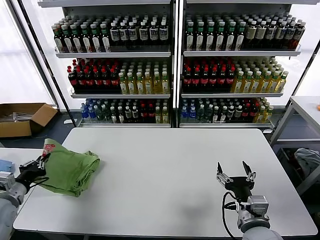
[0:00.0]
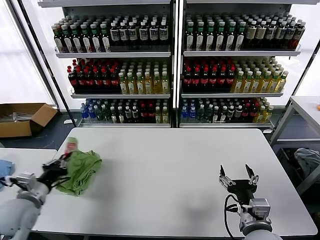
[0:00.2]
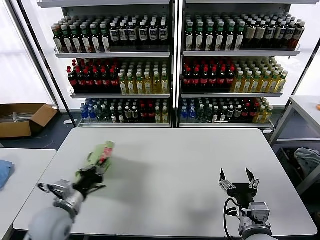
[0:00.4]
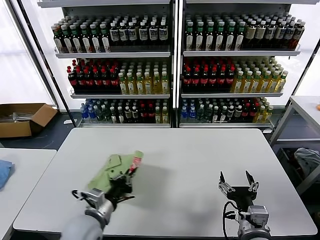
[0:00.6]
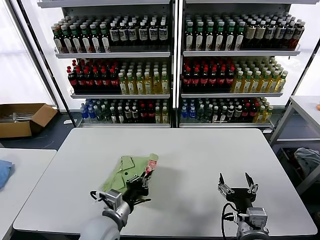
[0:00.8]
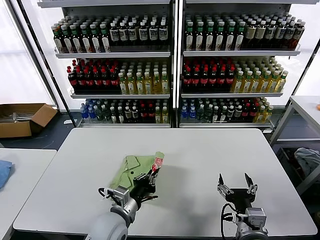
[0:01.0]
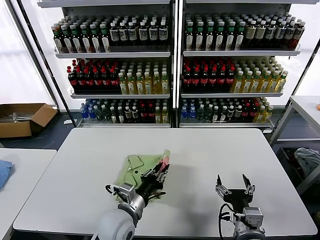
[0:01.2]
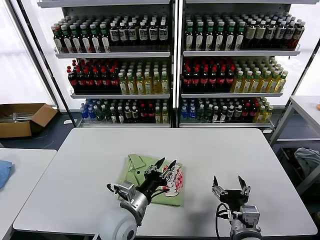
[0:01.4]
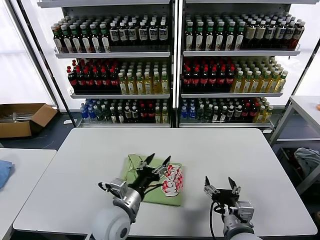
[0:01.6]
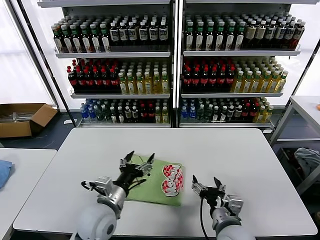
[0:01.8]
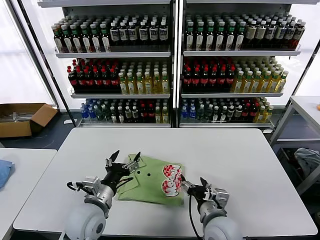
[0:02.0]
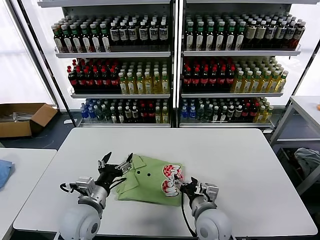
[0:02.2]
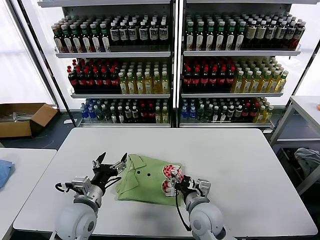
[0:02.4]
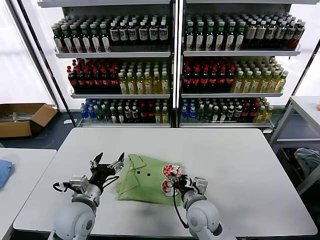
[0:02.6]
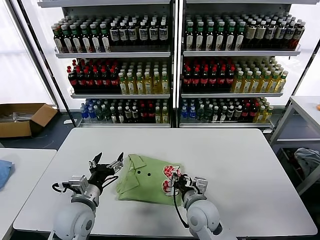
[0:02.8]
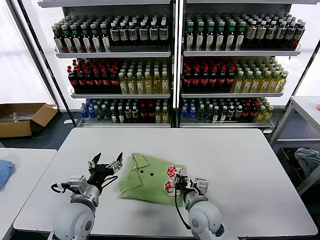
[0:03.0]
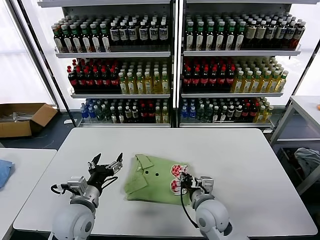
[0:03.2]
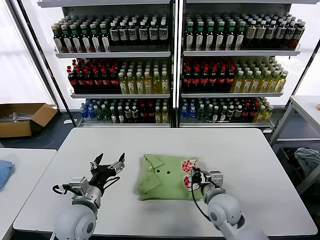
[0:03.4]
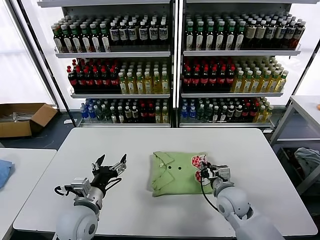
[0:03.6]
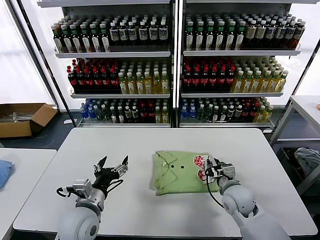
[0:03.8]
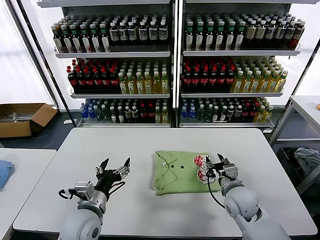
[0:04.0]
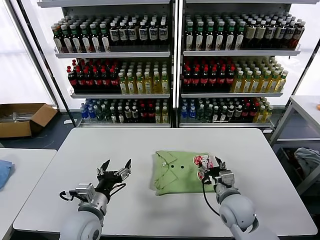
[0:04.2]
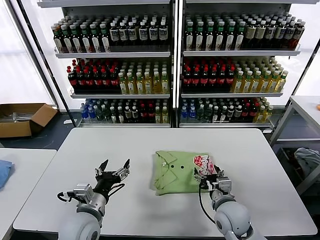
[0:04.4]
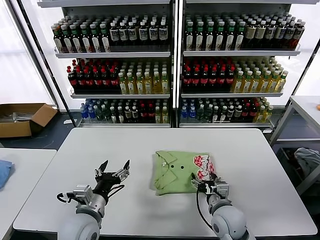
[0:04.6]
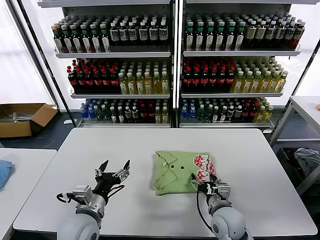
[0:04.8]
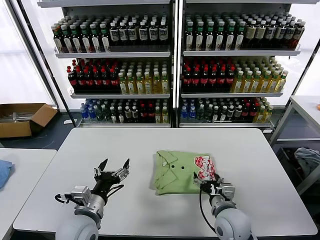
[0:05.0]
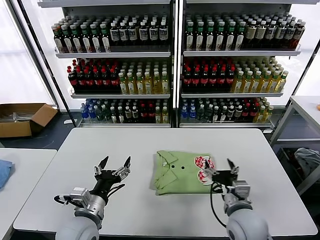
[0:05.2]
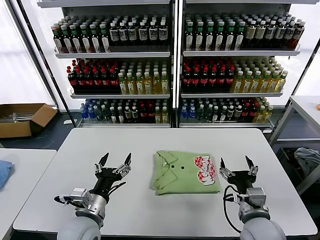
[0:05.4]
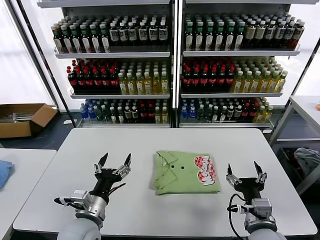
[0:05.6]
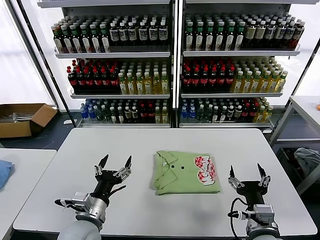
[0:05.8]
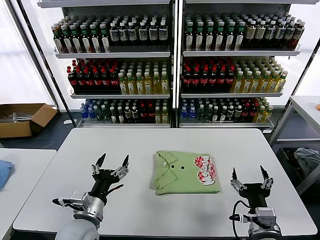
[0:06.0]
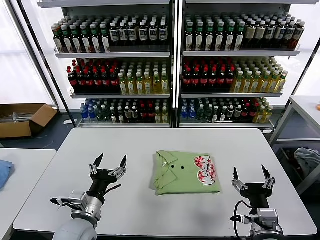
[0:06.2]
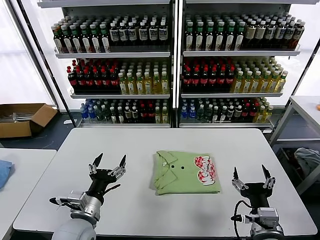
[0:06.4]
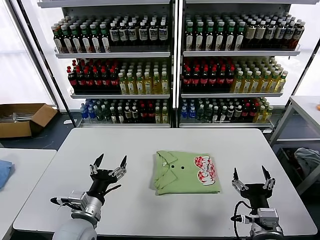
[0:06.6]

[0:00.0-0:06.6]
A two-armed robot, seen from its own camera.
Task of the whole recording: fold and organize the clothes.
Step, 1.6 to 5.0 s: Drag the clothes to the center of the table.
0.0 to 1.6 s: The left gripper goes roughly 35 cm to the right, and opens.
1.6 to 3.2 s: The left gripper moves to the left, roughly 10 cm. Meanwhile the right gripper travels forward and to the left by some 15 cm, and closes up.
3.2 to 5.0 s: The right gripper heads to the right, covering about 5 cm, and opens.
5.0 to 6.6 s: The right gripper moves backward, upward and to the right, roughly 15 cm.

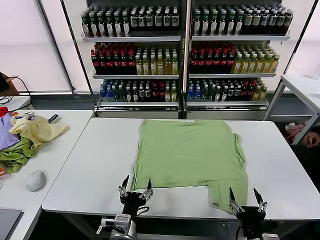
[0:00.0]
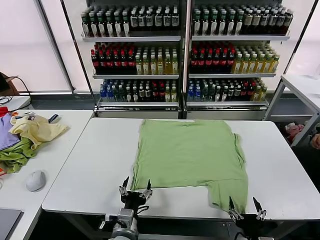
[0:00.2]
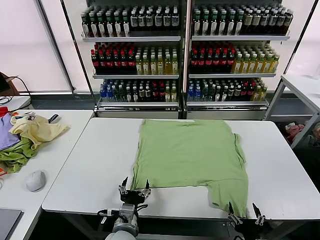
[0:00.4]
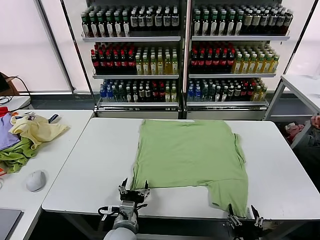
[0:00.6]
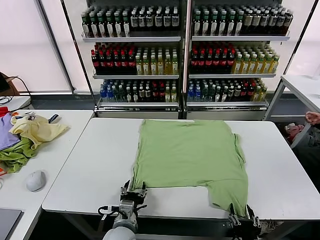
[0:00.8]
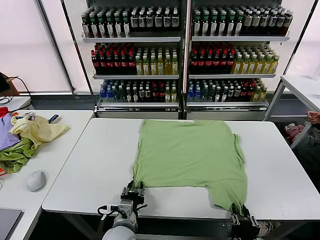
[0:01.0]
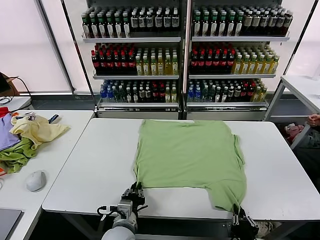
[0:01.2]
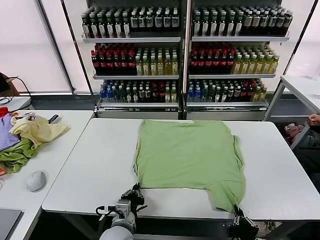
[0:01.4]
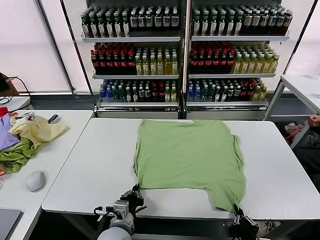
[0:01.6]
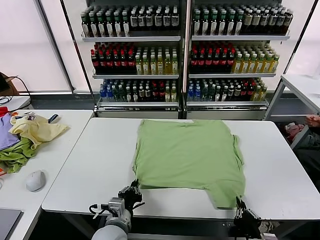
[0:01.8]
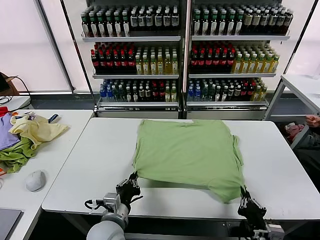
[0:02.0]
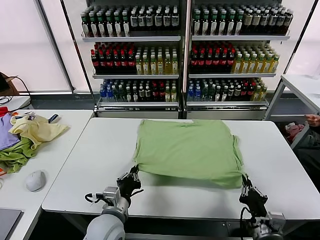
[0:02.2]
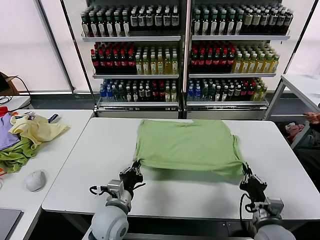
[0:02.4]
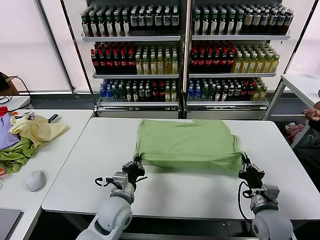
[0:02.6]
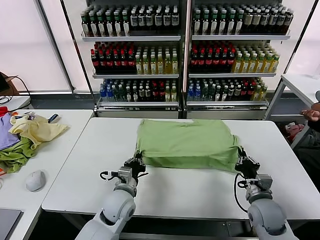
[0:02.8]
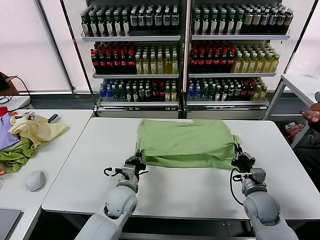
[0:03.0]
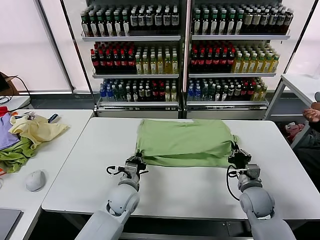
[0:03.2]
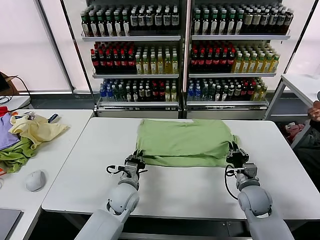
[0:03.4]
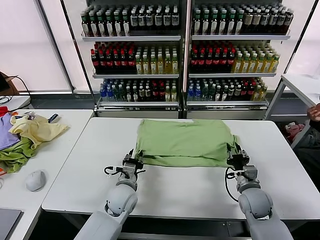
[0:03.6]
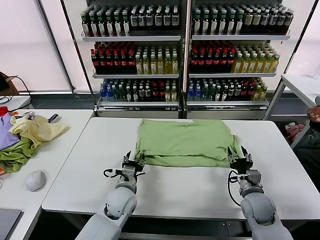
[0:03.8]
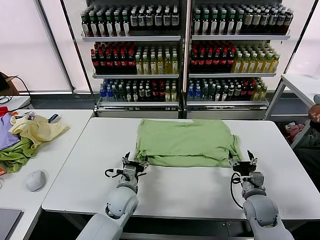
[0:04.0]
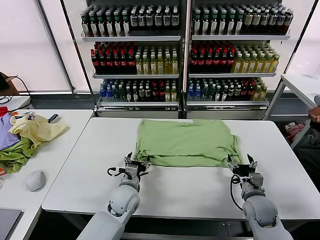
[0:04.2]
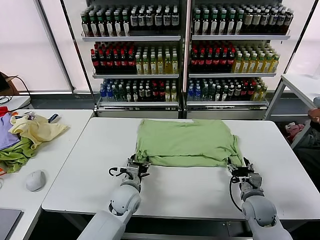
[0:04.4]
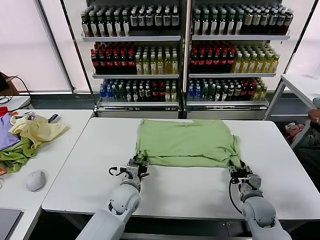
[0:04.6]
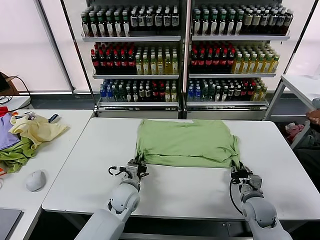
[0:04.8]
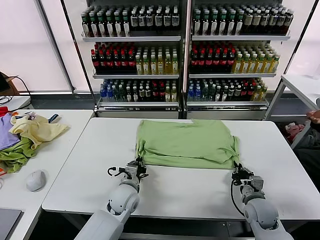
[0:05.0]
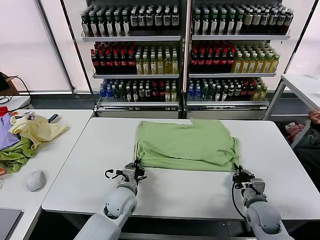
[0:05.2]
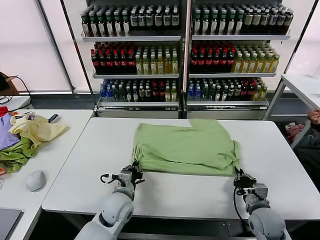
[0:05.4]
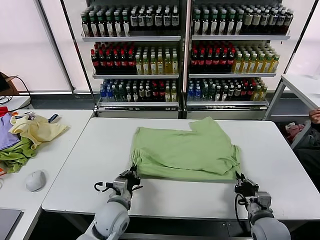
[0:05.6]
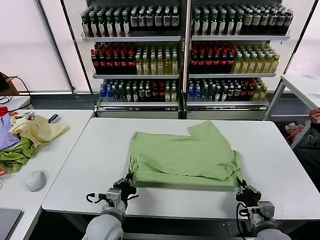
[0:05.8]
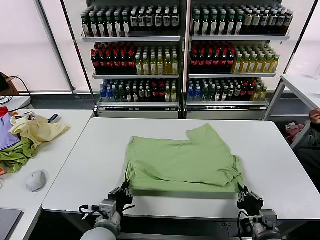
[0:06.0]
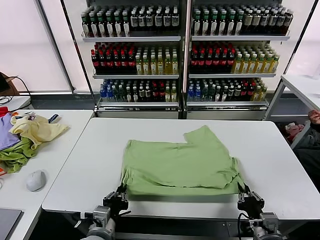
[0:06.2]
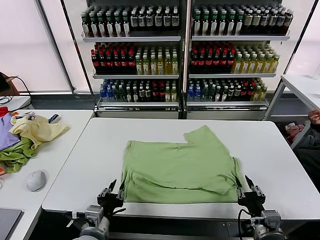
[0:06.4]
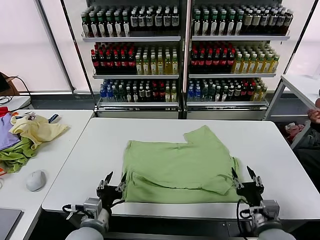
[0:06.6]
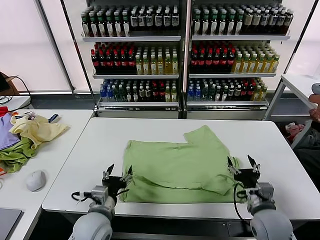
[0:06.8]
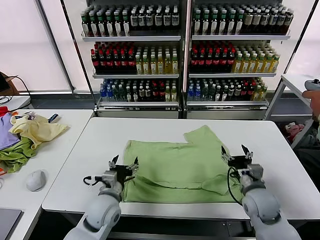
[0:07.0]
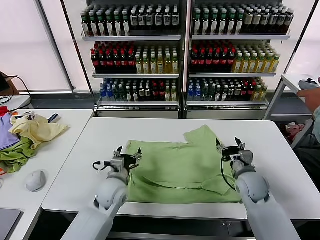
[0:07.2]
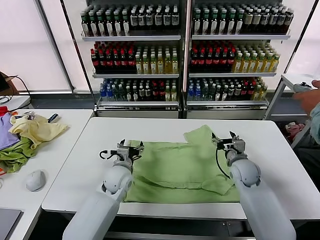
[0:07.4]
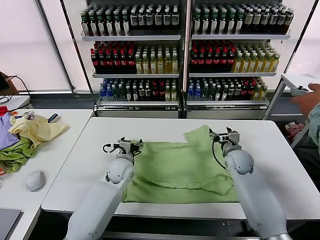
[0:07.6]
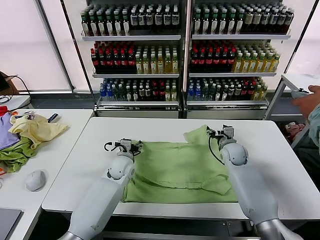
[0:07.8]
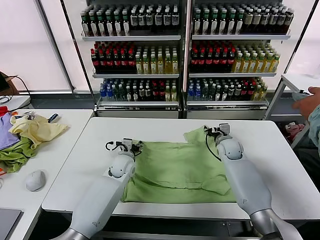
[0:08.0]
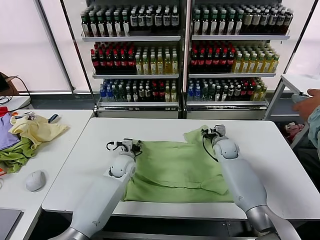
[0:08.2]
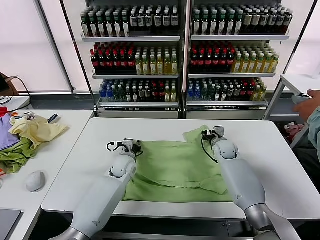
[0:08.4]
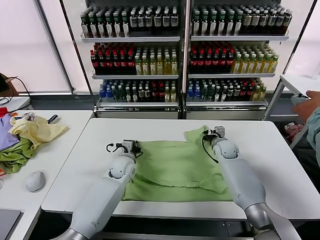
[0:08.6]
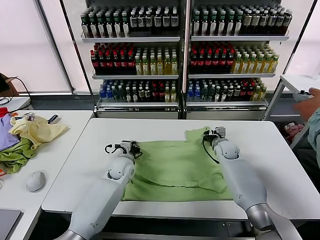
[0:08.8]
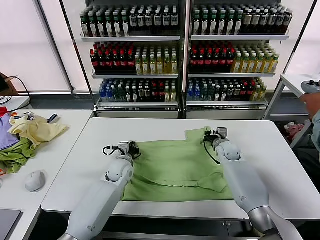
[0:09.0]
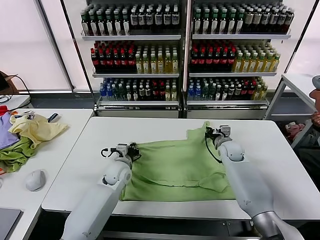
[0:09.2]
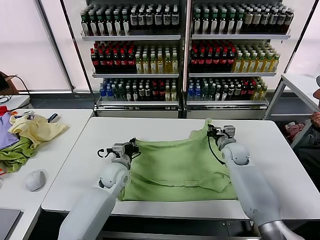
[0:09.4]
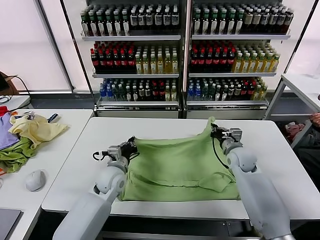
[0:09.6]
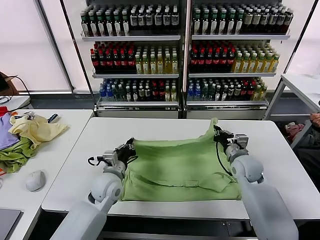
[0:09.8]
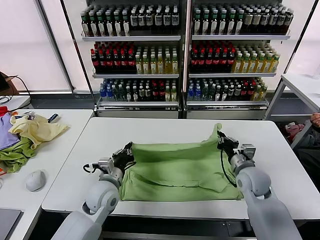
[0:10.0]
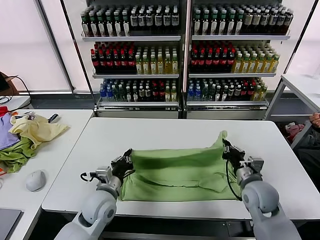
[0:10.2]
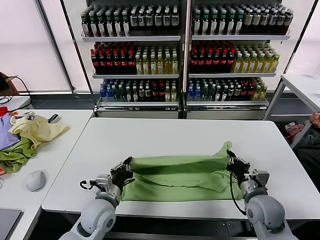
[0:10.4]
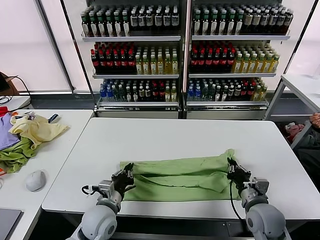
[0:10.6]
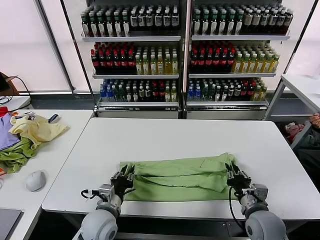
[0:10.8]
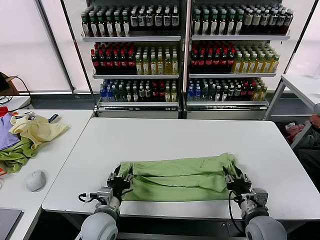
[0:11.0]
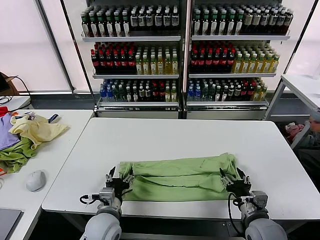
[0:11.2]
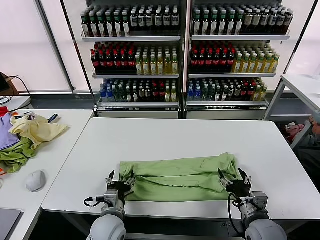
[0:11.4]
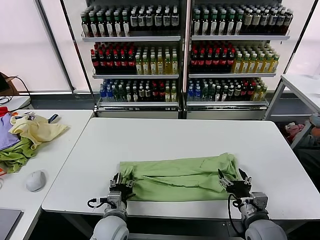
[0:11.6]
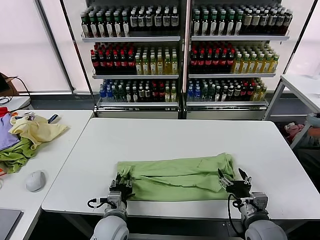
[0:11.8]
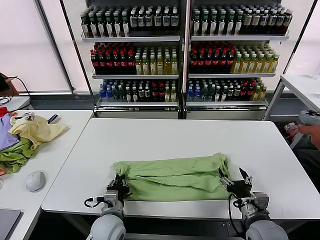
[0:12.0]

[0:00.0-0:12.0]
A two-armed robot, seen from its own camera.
Task of the whole recording: fold and organize the clothes.
Step, 0.0 to 1.2 s: use both grippers simultaneously to clamp the lower edge of the clothing fabric.
Step, 1.4 to 3.6 s: use both grippers to drag the lower edge of the fabric forward and fold it over the upper edge.
Step, 4.0 to 6.4 s: Drag the clothes downward with both gripper.
Step, 6.6 to 8.6 s: use both grippers simultaneously to clamp the upper edge of the clothing fabric.
Step, 8.8 to 10.8 s: use both grippers to drag the upper edge of the fabric backward and fold it over the lower edge.
1.6 to 3.0 s: The left gripper goes some 15 cm forward; the right gripper shifts some 20 cm forward.
3.0 to 4.4 s: The right gripper opens; the left gripper opens its fingers.
4.4 to 6.0 s: Both grippers move backward, approximately 15 cm. The right gripper closes. The left gripper closes its fingers.
6.0 to 7.6 s: The two grippers go approximately 30 cm forward. The left gripper opens, while the right gripper opens up.
7.6 to 9.0 s: The right gripper changes place by some 5 cm, and closes. The left gripper closes.
9.0 to 10.4 s: Both grippers travel together backward, about 20 cm.
10.4 to 12.0 s: The left gripper moves downward, about 5 cm, and opens, then closes once more; the right gripper shifts approximately 5 cm backward, and opens its fingers.

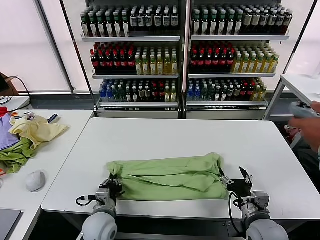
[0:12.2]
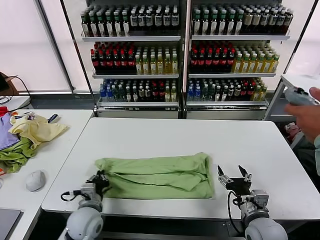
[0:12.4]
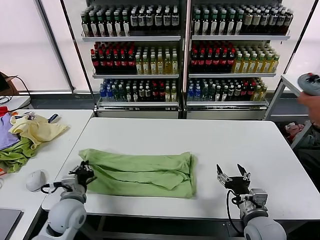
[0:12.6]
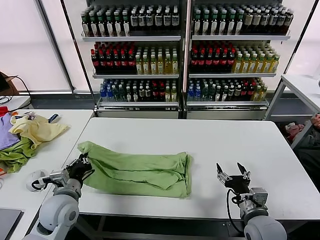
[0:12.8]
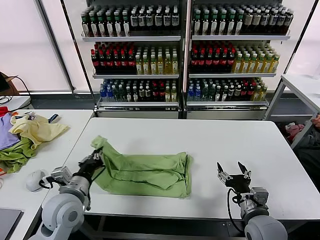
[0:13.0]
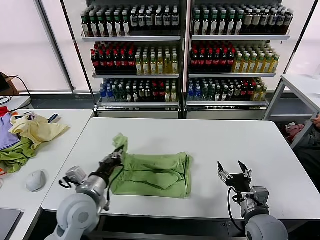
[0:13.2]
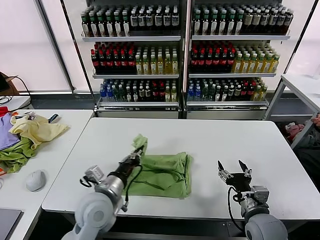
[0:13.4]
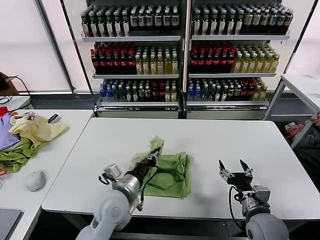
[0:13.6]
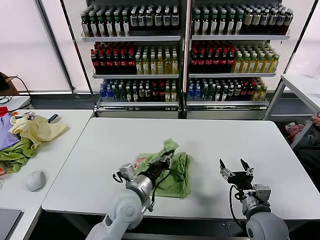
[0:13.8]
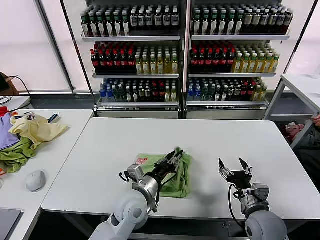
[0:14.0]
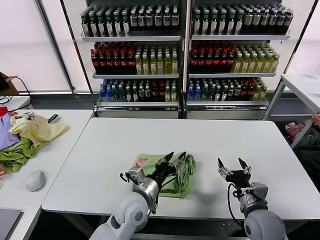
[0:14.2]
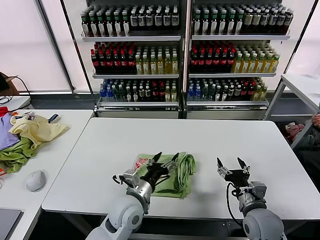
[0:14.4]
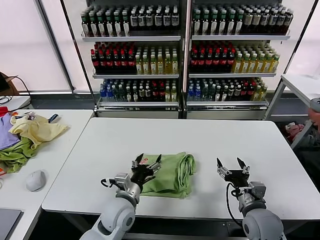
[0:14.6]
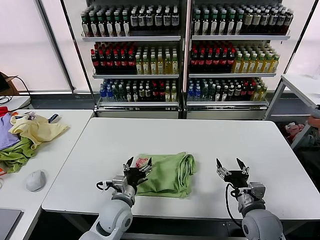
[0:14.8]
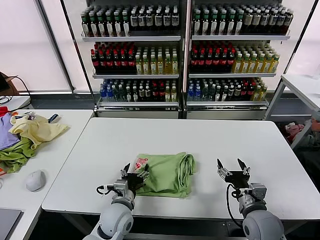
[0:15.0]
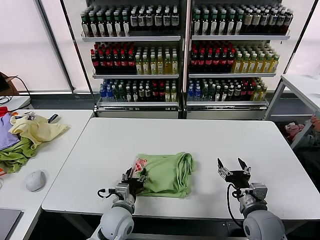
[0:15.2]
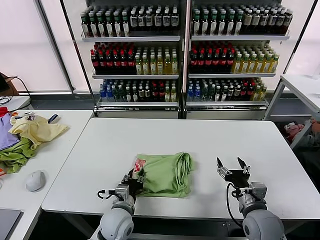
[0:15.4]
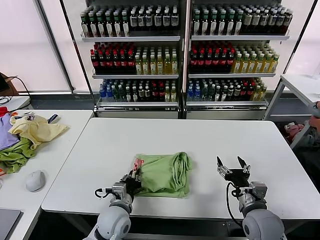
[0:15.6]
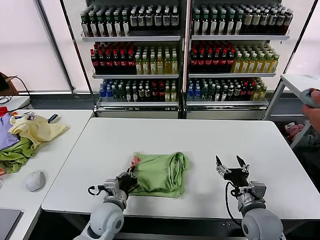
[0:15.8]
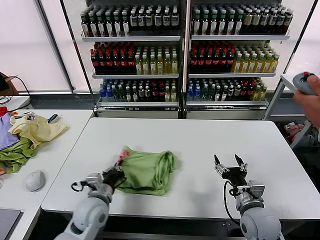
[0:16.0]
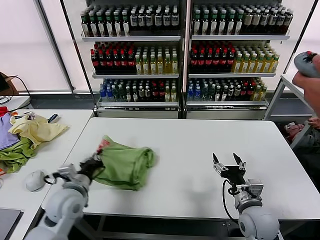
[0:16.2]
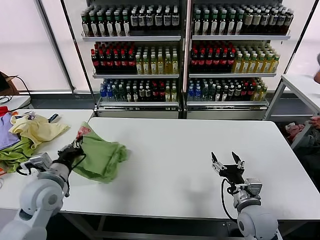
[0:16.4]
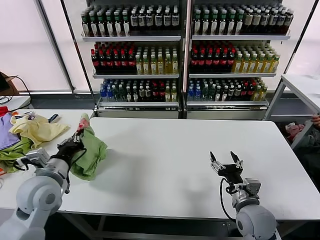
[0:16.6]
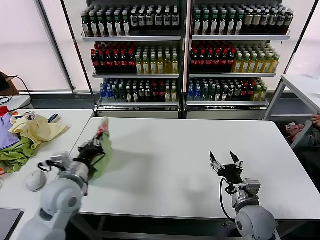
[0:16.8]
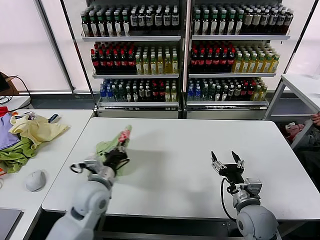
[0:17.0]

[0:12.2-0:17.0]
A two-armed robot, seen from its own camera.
Task of the whole recording: fold and organize the clothes.
Step, 12.4 to 14.0 s: use the left gripper to drag the left edge of the fabric to the left and folds it over the right edge.
12.2 to 13.8 s: The left gripper shifts roughly 10 cm upward and to the right.
13.8 to 15.4 s: The left gripper moves downward, roughly 10 cm, and opens, then closes again.
15.4 to 17.0 s: The left gripper moves upward and to the left, some 15 cm, and closes up.
